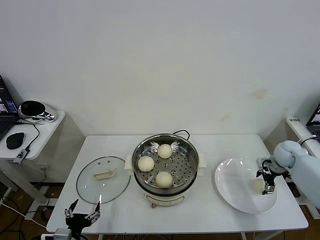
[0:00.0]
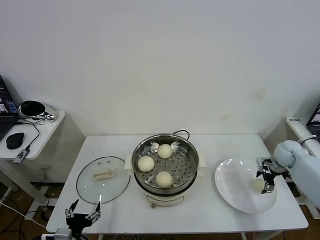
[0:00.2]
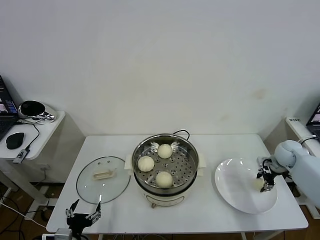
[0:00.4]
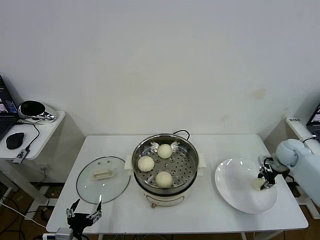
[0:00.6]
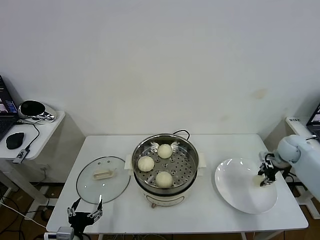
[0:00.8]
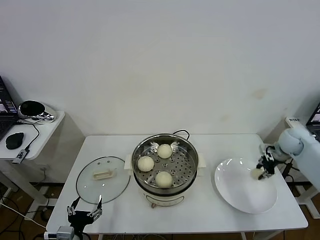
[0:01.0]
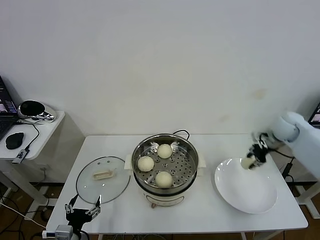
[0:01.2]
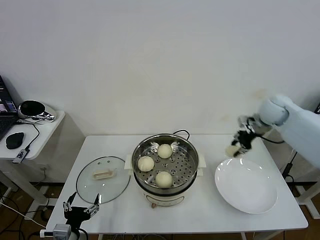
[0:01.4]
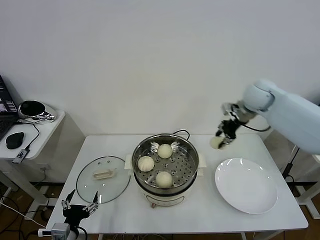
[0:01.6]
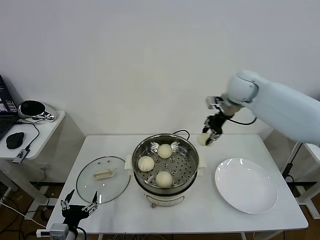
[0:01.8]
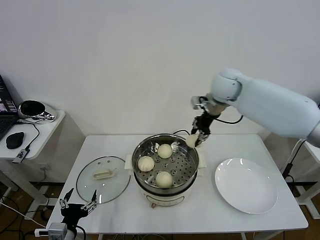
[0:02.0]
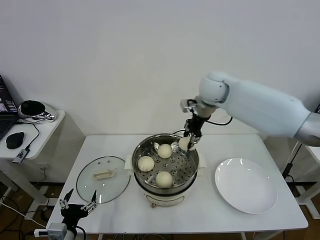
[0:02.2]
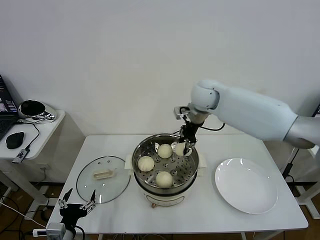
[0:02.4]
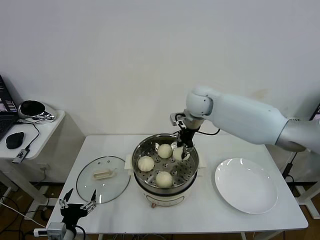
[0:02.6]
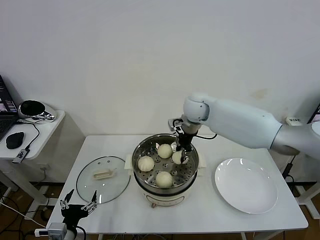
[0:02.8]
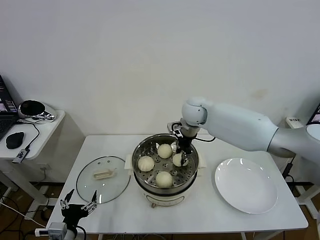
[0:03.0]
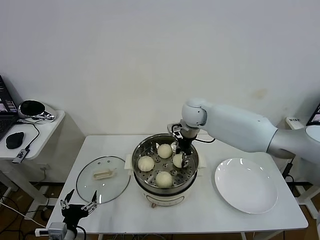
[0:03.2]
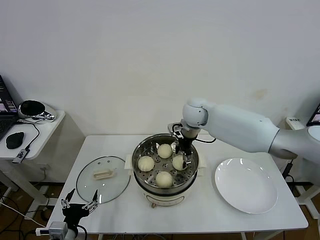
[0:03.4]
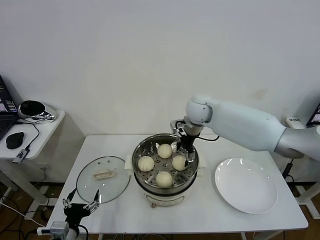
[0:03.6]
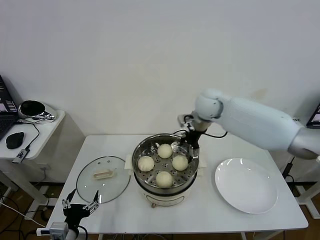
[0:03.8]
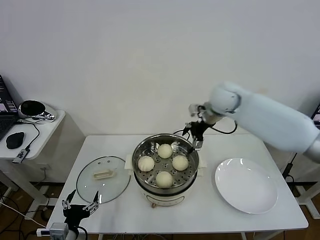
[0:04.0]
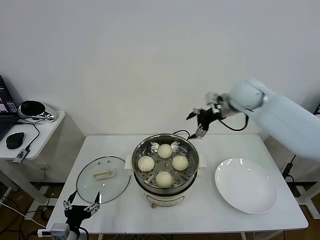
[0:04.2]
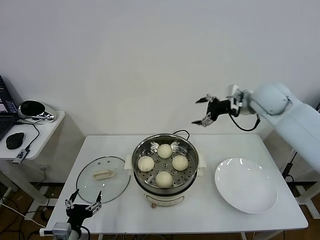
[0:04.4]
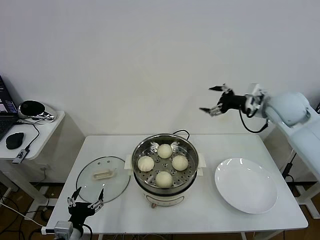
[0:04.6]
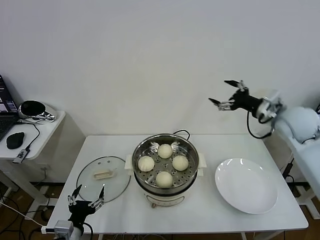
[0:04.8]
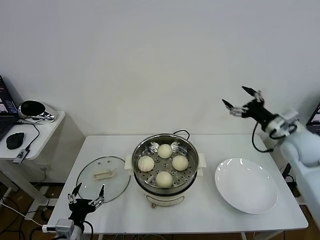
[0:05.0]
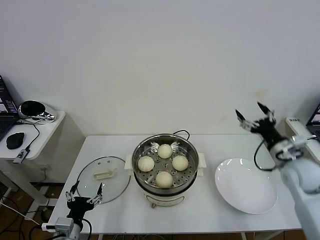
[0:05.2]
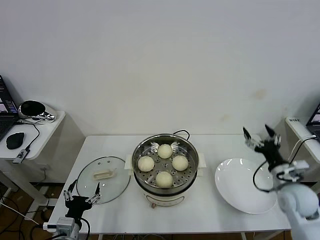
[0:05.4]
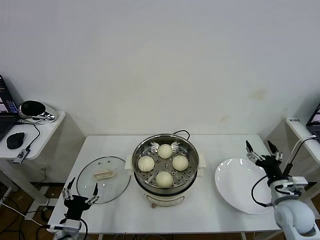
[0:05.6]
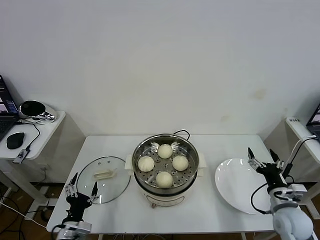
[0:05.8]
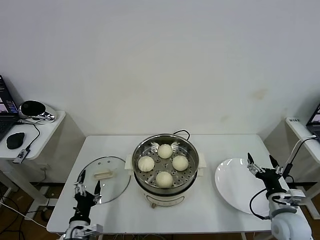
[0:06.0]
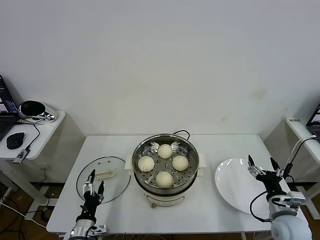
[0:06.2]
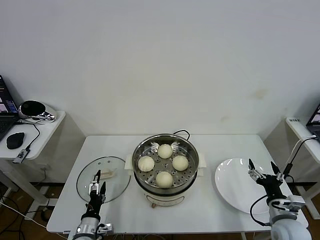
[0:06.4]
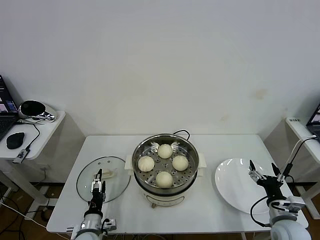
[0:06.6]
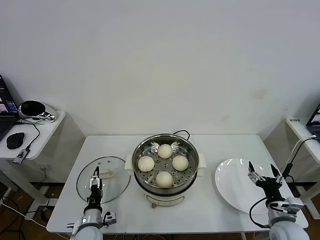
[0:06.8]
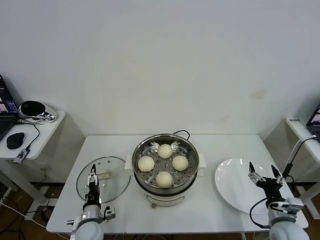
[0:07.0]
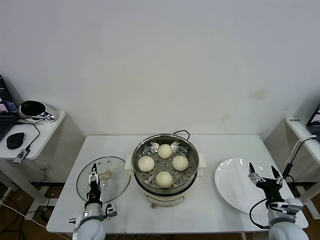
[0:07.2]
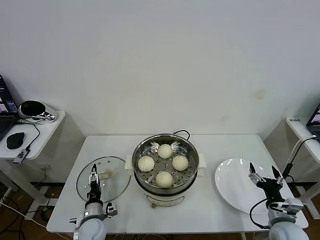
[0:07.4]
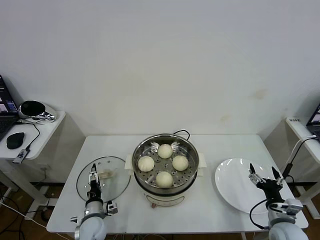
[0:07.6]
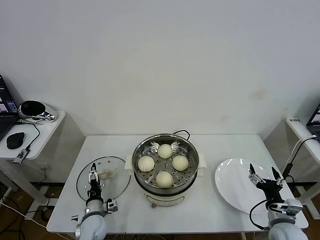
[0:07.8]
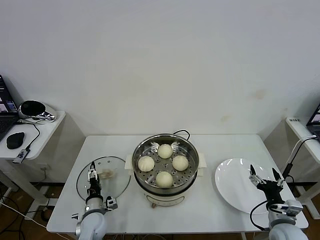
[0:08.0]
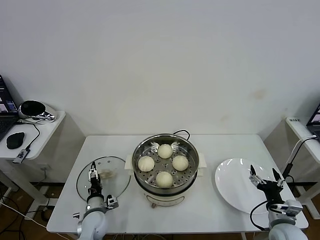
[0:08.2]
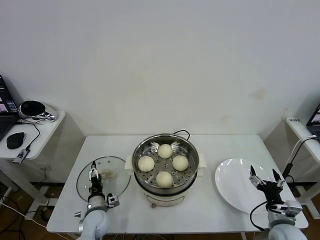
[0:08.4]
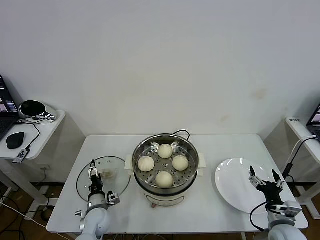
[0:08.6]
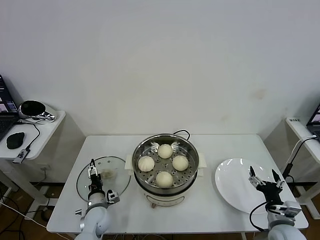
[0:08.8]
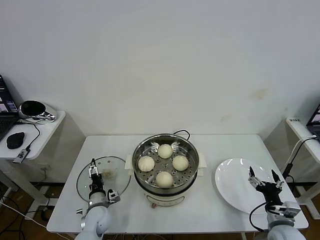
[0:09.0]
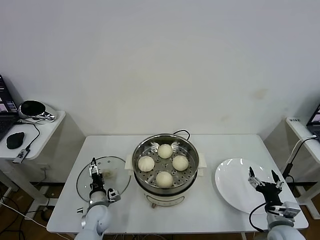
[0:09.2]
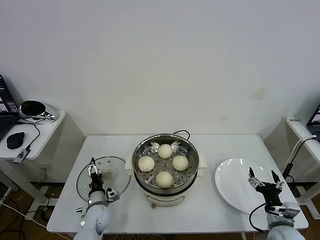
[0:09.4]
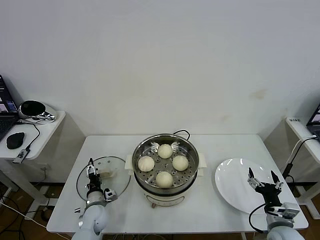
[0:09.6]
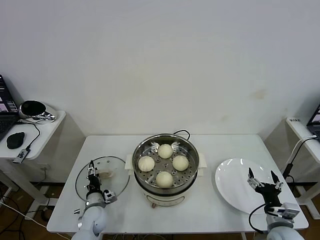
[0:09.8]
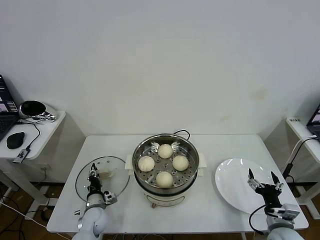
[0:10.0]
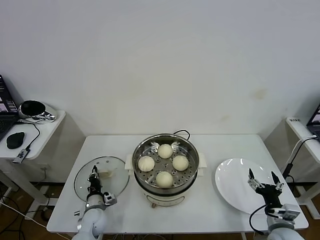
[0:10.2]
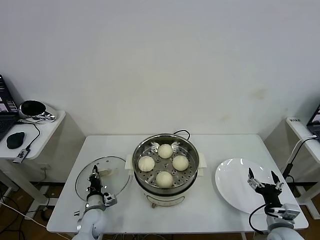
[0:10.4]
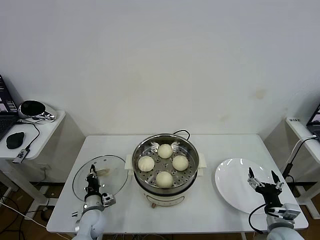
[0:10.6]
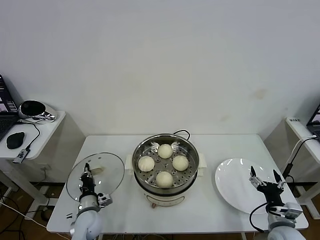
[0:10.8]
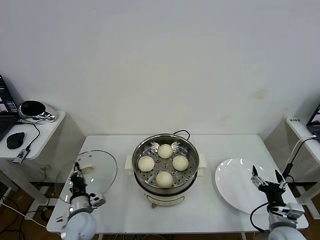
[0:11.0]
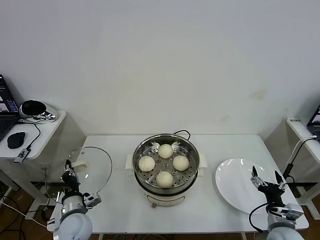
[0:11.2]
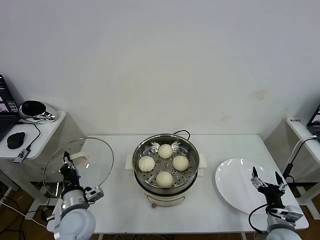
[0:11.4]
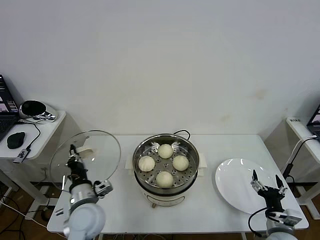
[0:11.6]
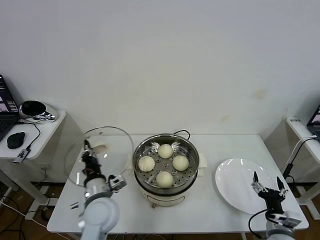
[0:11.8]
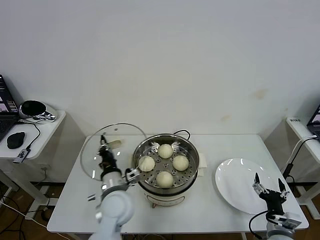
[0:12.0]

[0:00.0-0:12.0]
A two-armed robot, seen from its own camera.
Task of the whole recording: take steamed baozi put them in steamer then cover it.
Step, 0:00.6 to 0:03.8: Place the baozi on the steamer with right gripper.
Step, 0:04.0 to 0:10.4: Grasp the pot lid with left gripper.
0:00.0 to 0:01.6: The right gripper goes approximately 30 cm upward and to the left, and closes.
0:01.6 to 0:03.0: The right gripper shifts roughly 20 cm to the left and downward.
0:03.0 to 0:04.4: The right gripper goes roughly 20 cm to the right and upward, and opens up.
0:04.4 to 0:06.0: The right gripper travels downward and backward by roughly 40 cm, while the left gripper moves some 5 cm.
0:06.0 to 0:07.6: The left gripper is displaced forward and downward by roughly 10 cm.
0:07.6 to 0:09.0: The grippers stay close to where they were, moving slightly.
0:09.0 to 0:10.4: The left gripper closes.
0:10.4 to 0:12.0: The left gripper goes some 25 cm upward and to the right.

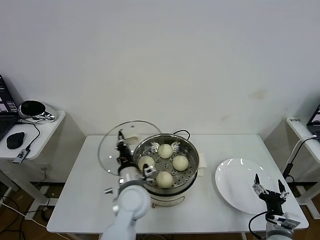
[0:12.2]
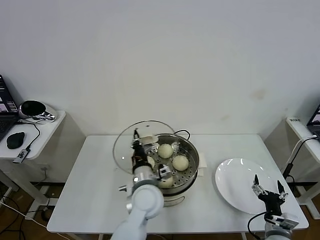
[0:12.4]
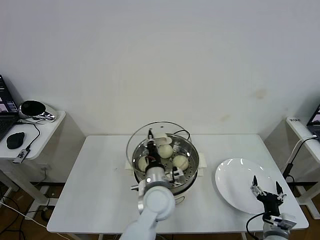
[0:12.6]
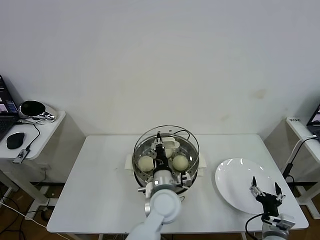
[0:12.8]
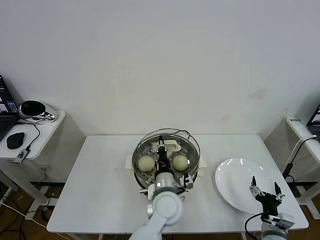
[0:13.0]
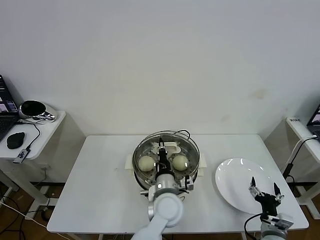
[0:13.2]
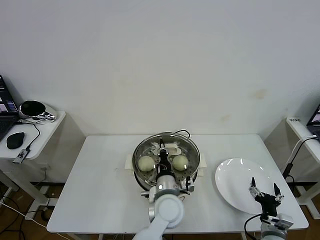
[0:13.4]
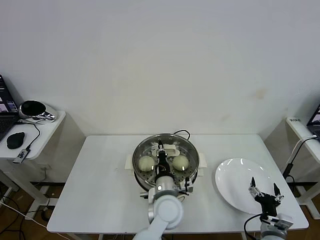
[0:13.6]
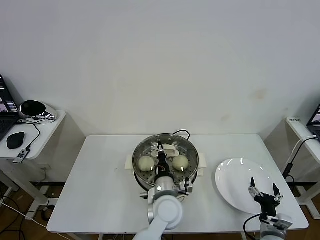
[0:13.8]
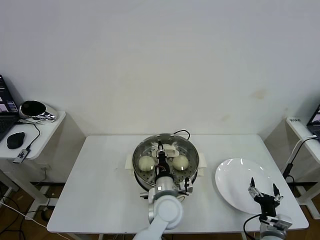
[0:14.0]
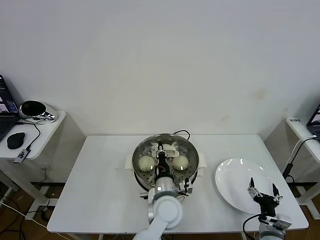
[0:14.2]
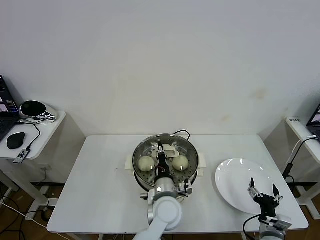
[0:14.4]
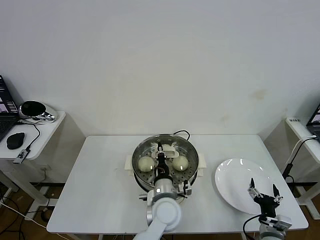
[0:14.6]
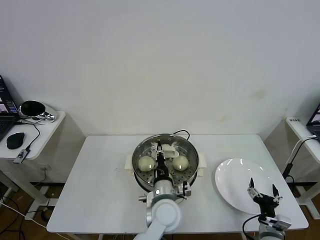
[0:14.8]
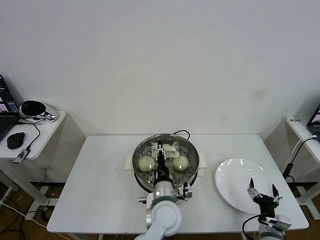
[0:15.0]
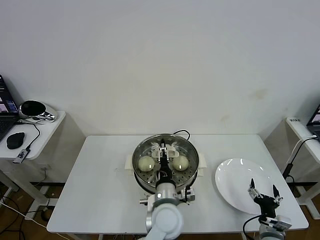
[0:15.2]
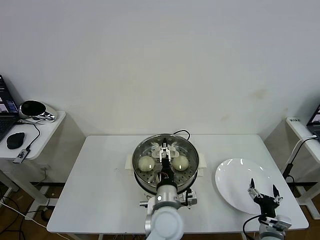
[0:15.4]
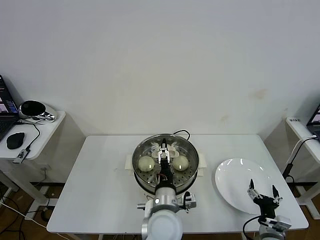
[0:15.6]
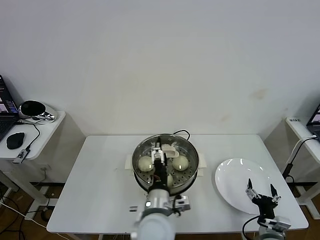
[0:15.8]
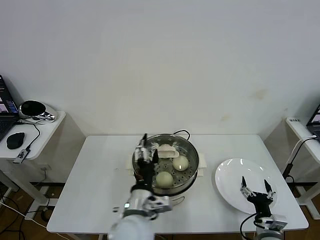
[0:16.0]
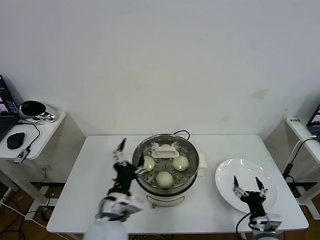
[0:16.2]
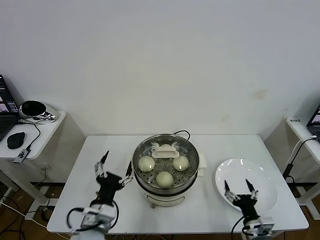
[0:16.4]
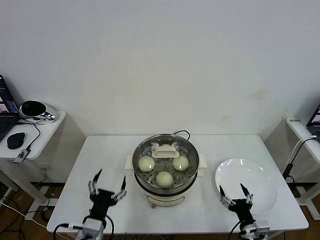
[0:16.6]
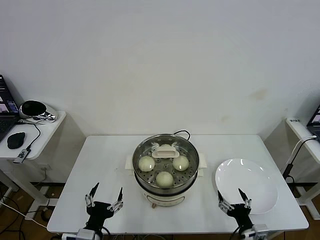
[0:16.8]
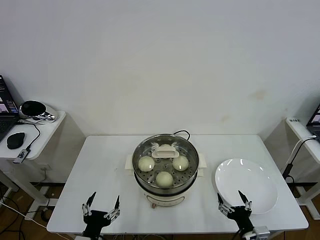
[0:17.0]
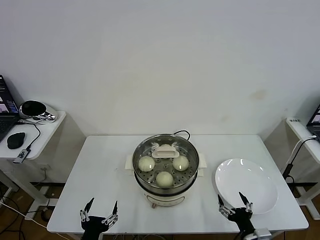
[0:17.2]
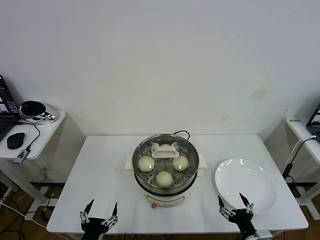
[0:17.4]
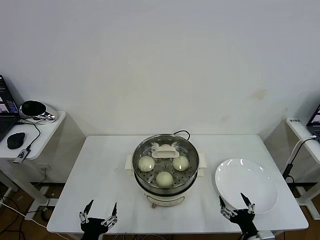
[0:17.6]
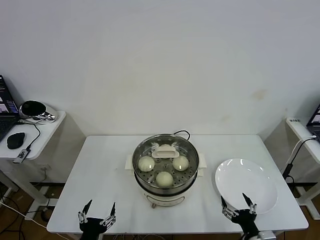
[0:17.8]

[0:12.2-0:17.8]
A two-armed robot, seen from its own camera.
Task of the whole recording: take steamed baozi put them in steamer then cover it.
Step, 0:12.2 to 0:15.6: Place the pot lid on the steamer with left gripper.
0:12.2 to 0:13.6: The left gripper heads to the right, covering some 10 cm.
0:13.6 to 0:15.0: The left gripper opens up.
0:15.0 to 0:16.4: The left gripper is displaced to the left and backward by some 20 cm, and opens up.
0:16.4 to 0:17.8: The right gripper travels backward by about 5 cm; the left gripper travels backward, downward and to the left by approximately 15 cm.
